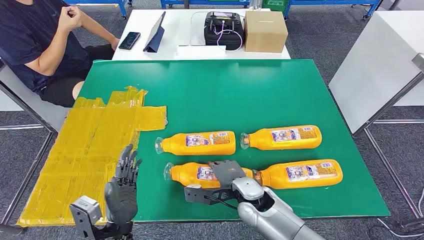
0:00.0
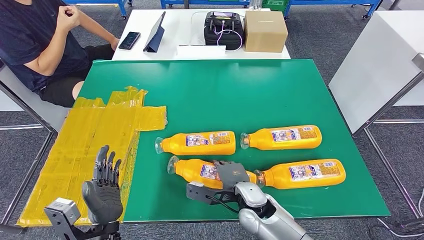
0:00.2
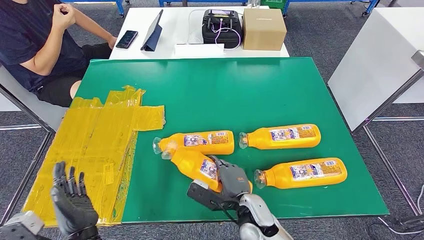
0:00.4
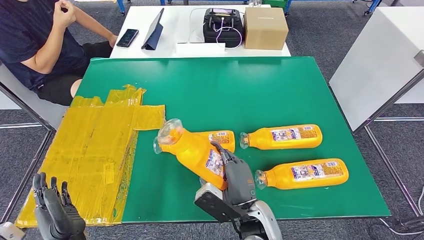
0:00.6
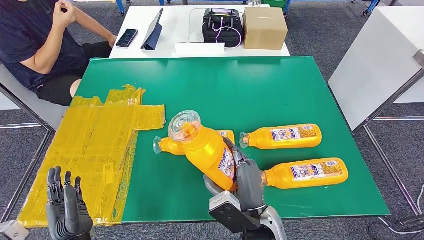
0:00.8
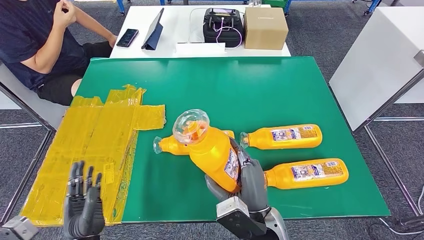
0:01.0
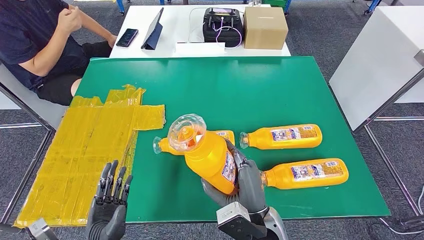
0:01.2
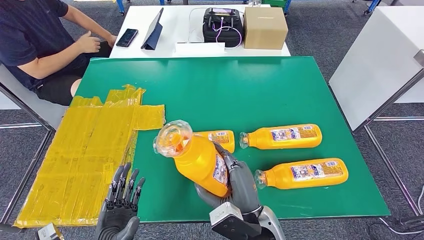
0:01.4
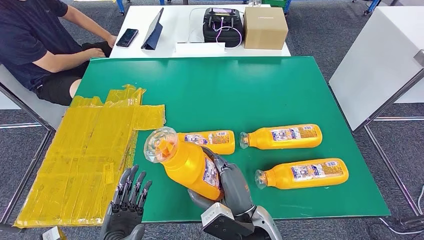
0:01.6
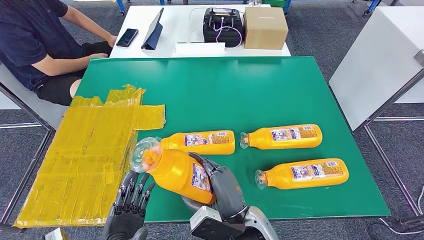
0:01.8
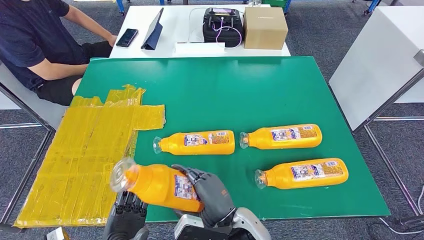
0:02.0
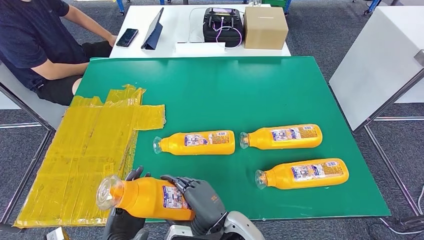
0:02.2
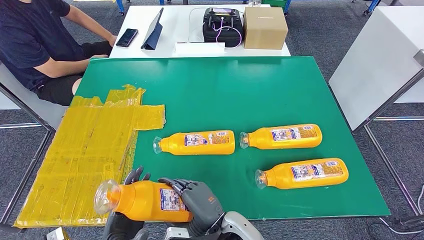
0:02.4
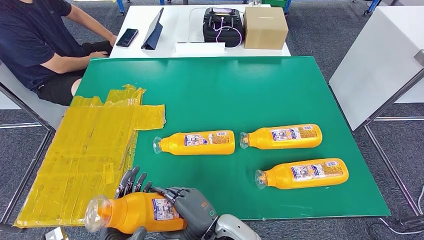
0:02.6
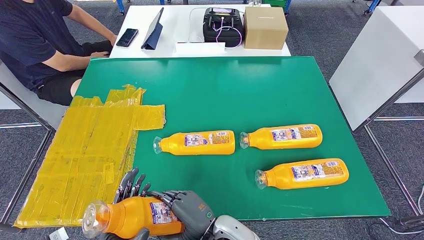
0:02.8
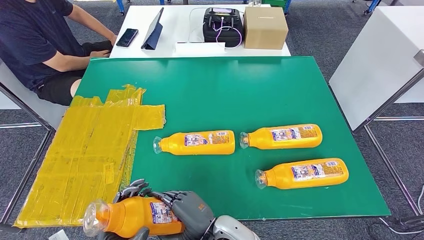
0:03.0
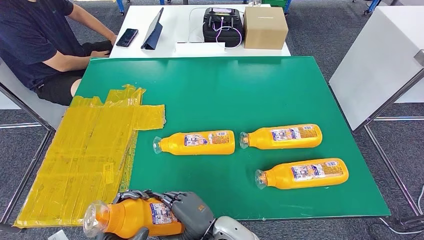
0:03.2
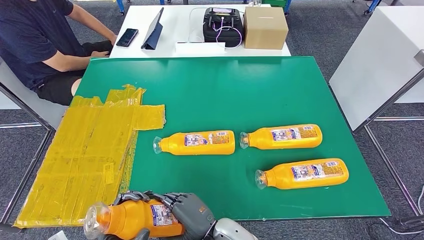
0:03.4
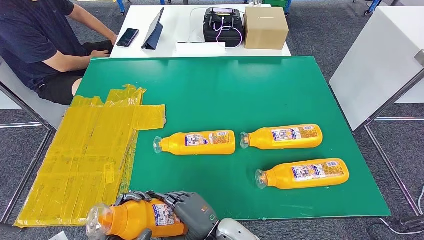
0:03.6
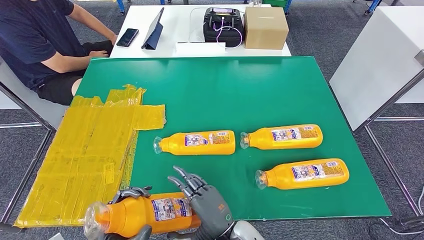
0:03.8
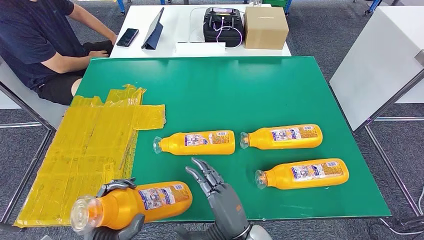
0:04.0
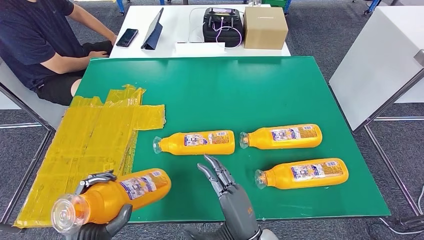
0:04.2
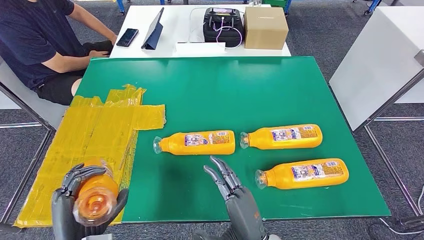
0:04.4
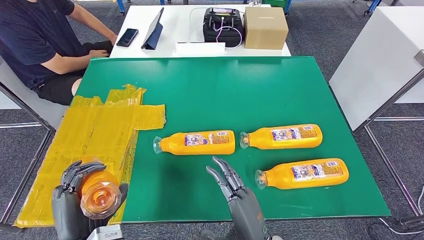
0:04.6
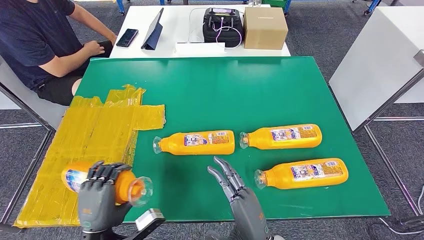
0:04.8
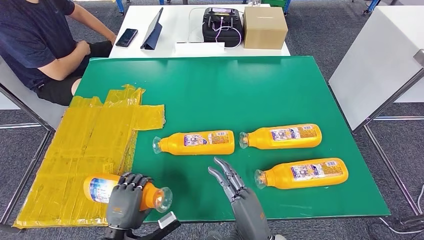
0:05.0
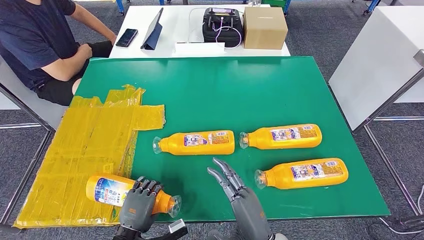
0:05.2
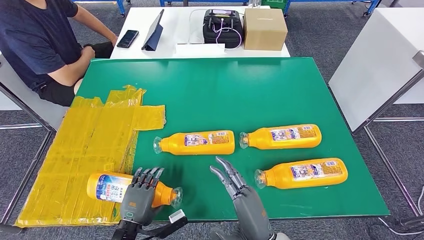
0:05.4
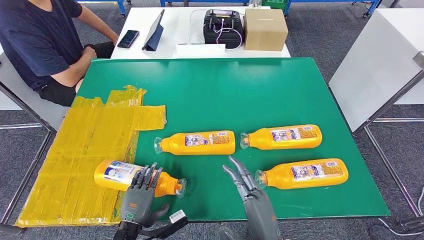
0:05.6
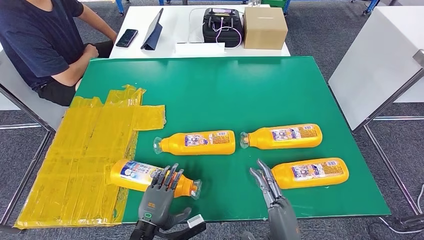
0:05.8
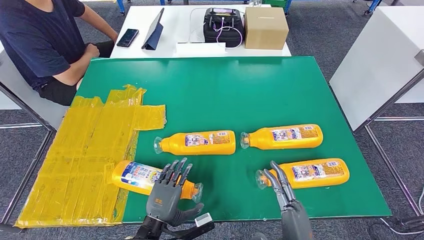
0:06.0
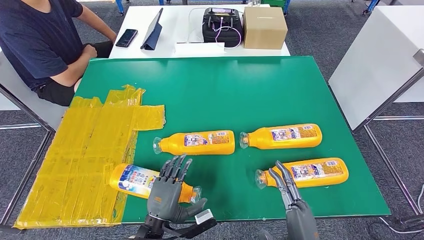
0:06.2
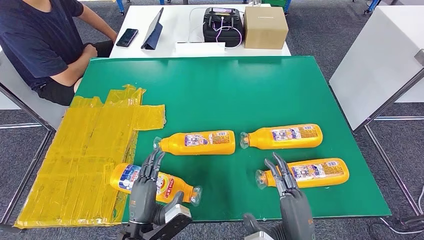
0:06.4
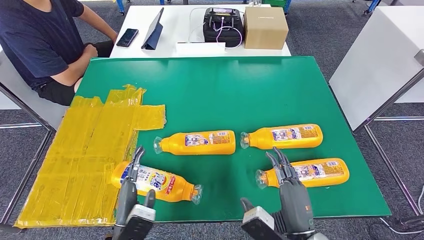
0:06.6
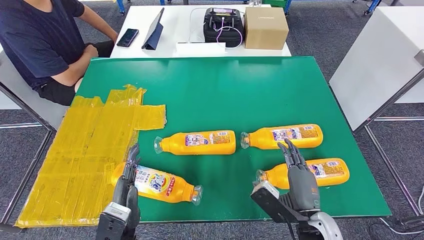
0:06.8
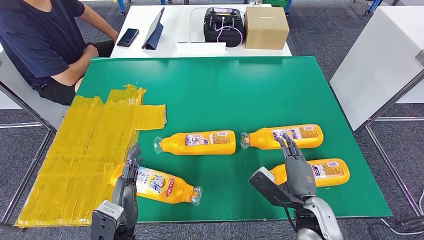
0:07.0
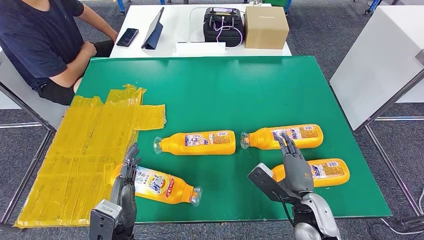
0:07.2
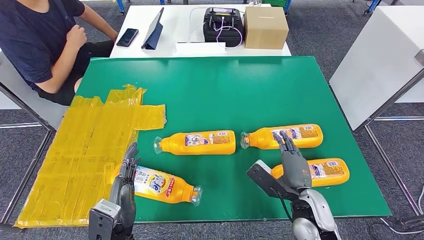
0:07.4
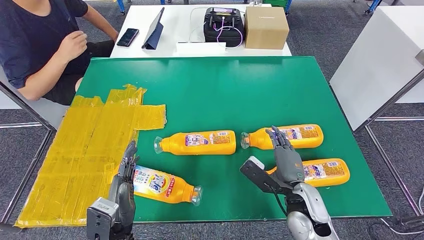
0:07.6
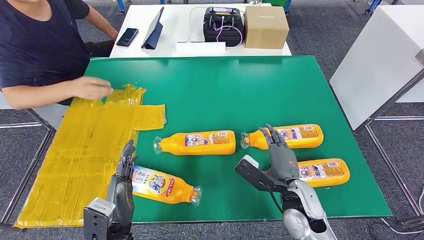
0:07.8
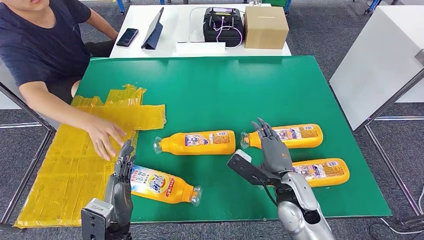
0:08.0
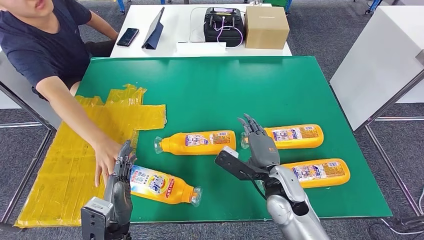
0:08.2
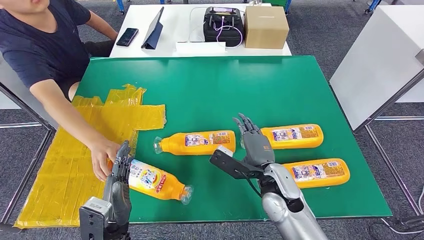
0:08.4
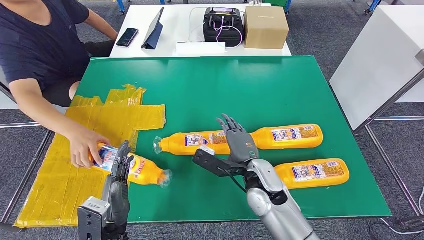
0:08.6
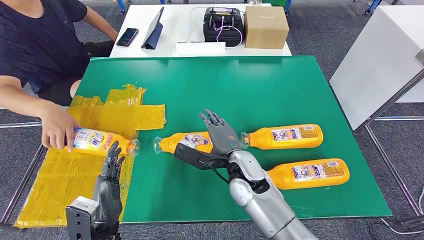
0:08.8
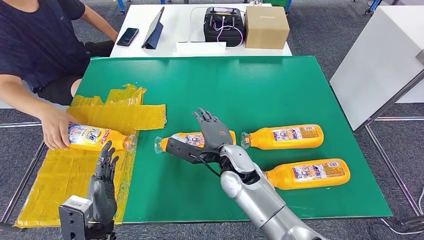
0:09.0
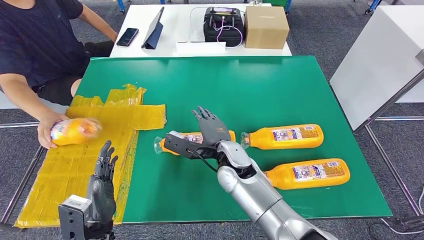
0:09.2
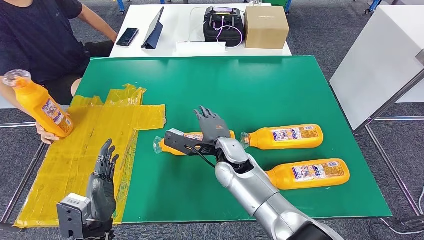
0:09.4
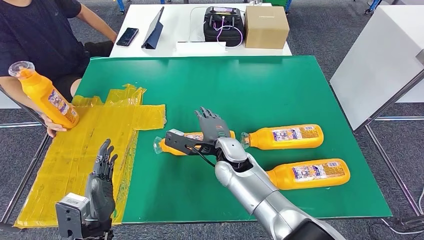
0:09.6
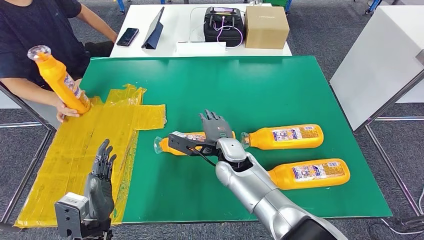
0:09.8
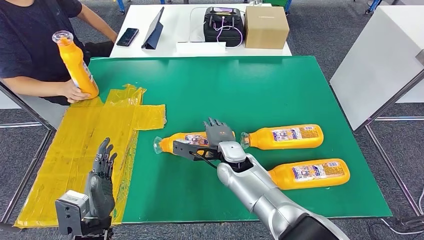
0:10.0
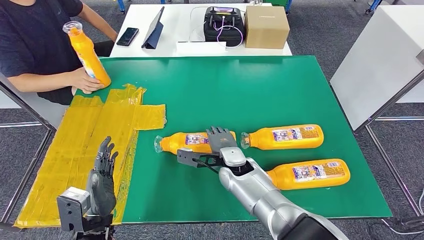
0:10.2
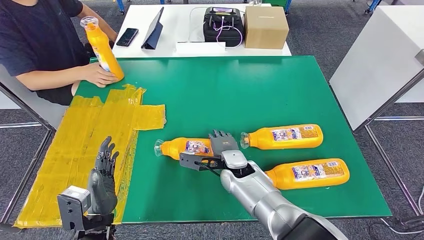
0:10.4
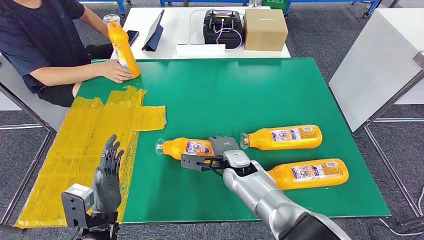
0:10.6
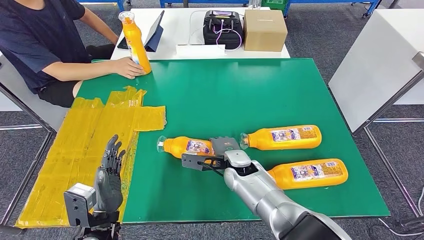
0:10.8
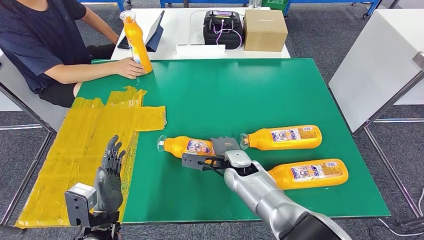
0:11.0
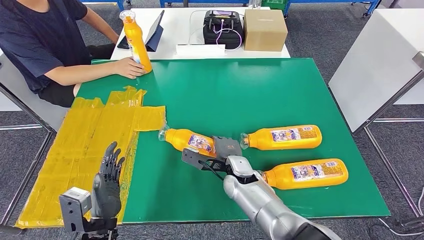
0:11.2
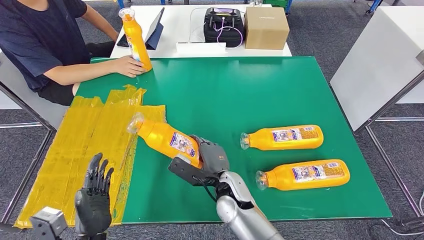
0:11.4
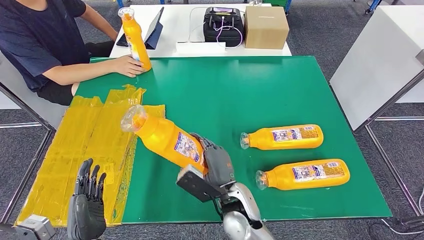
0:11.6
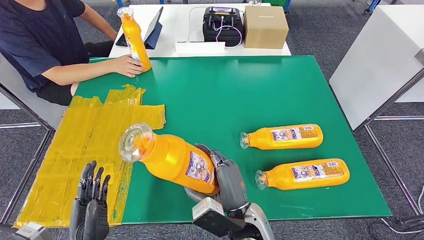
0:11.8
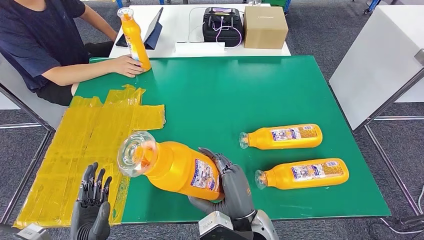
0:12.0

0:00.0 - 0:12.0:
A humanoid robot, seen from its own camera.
Step, 0:00.0 - 0:03.2: Take the fast-moving consumer goods bottle from the table.
Step, 0:03.4 - 0:08.0: Flip the fast-moving consumer goods bottle to the front side.
0:01.6 - 0:03.0: The right hand heads to the left, covering some 5 cm.
0:03.0 - 0:04.4: The right hand is displaced to the right by some 5 cm. The left hand goes approximately 5 cm upward.
0:04.4 - 0:06.0: The left hand is displaced to the right, downward and forward by some 15 cm; the right hand moves to the right, approximately 5 cm.
0:06.0 - 0:07.6: The left hand heads upward and to the left, covering some 10 cm, while the right hand travels forward by about 15 cm.
0:09.0 - 0:10.4: The right hand heads downward, covering approximately 5 cm.

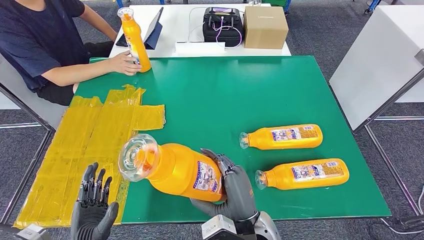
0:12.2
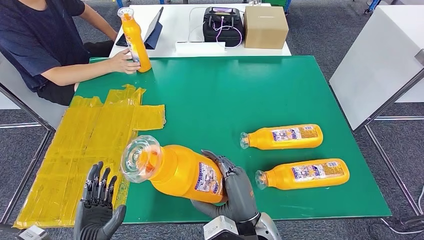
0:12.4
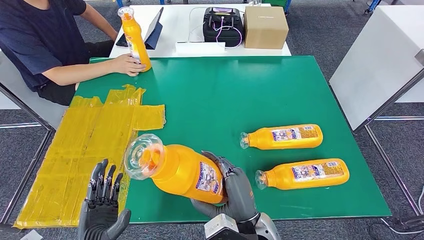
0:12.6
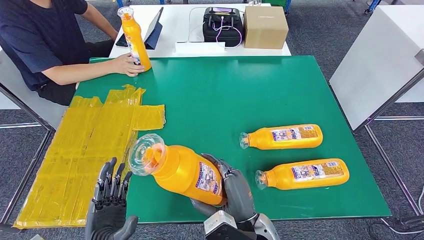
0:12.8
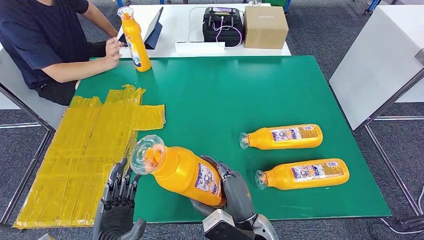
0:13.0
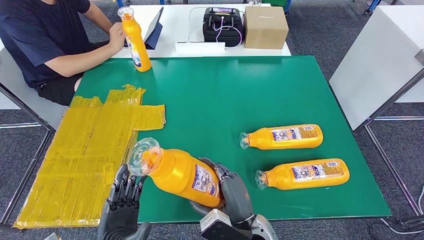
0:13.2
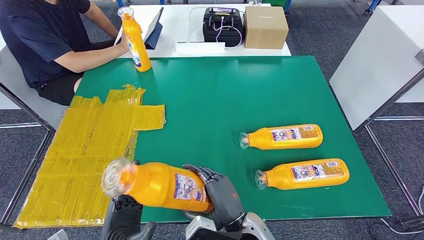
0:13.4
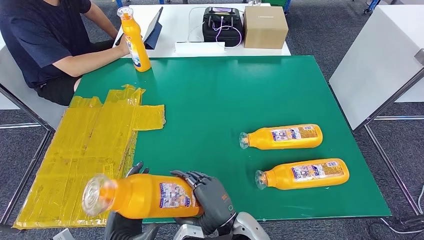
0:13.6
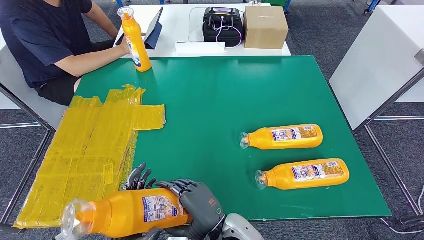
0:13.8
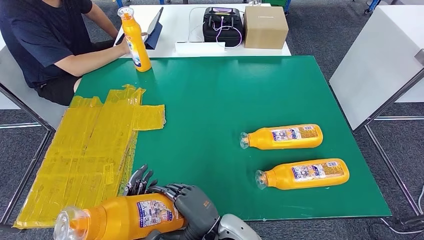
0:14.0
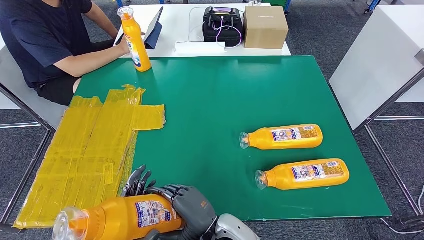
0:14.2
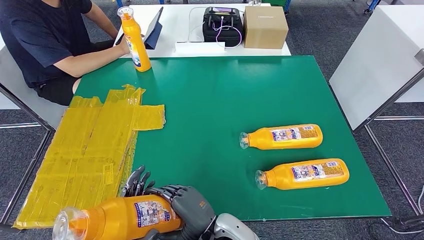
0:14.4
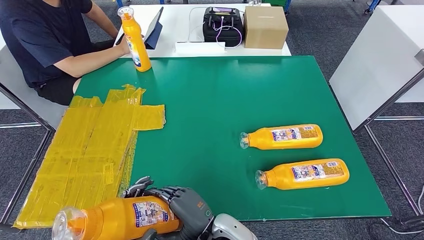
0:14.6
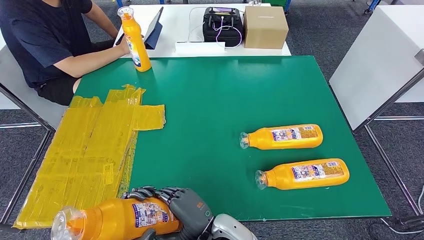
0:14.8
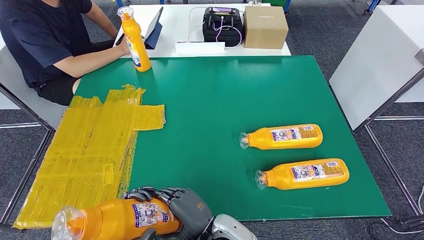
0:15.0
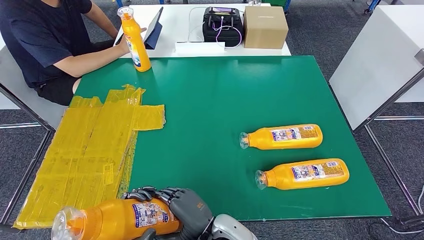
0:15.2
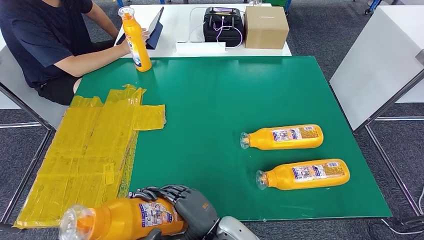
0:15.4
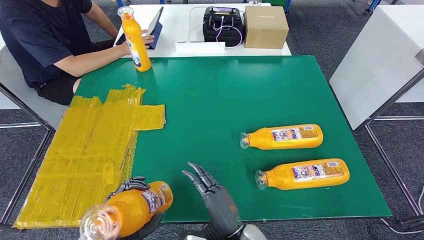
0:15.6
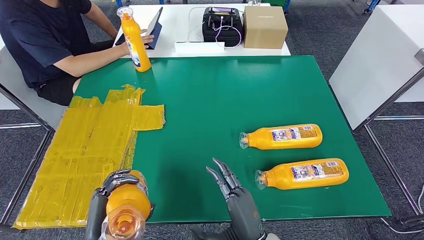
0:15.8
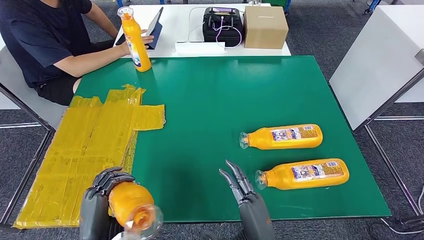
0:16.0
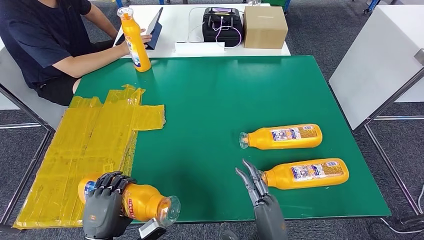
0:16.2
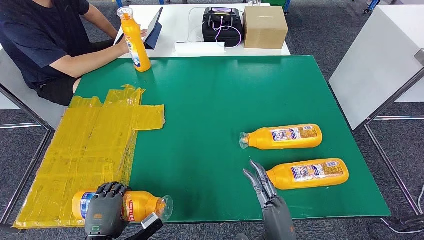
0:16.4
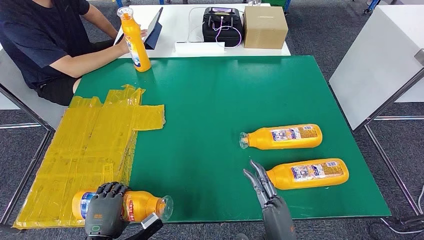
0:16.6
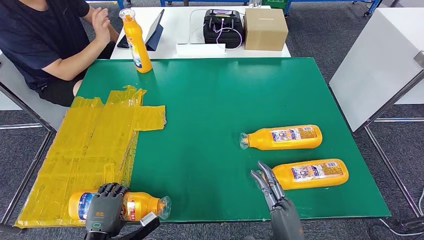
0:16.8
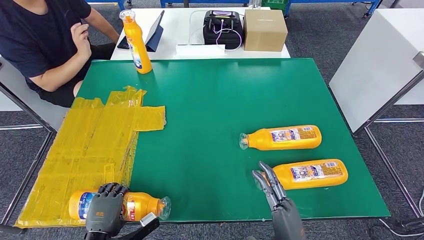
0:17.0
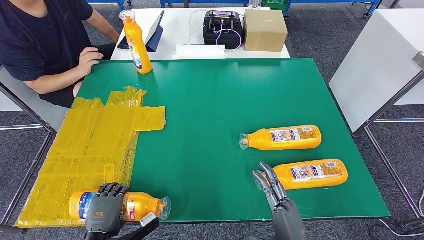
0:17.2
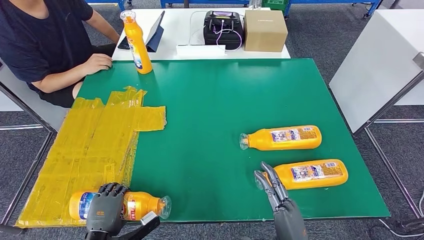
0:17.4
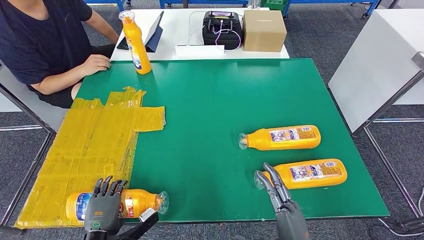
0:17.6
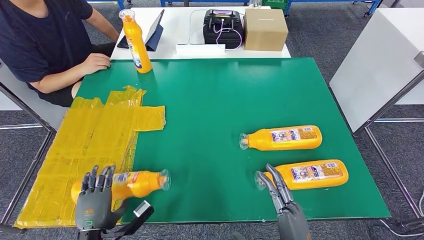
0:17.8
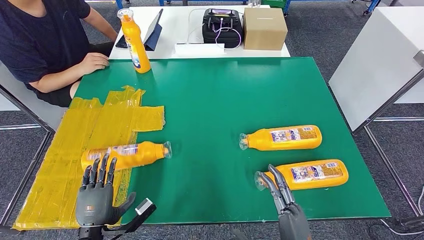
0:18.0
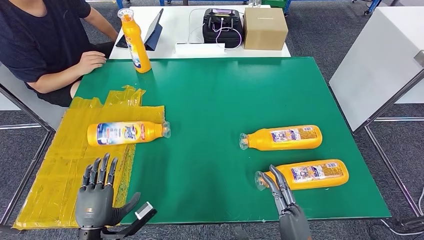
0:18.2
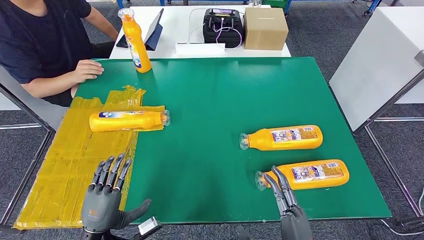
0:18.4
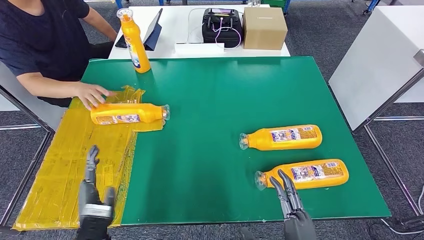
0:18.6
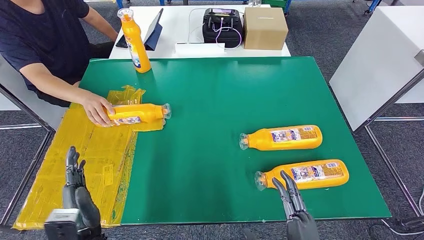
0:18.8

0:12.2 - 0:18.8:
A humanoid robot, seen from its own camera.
Step, 0:13.2 - 0:18.0: Flip the fast-moving consumer goods bottle to the front side.
0:13.8 - 0:15.4: The hands make only small movements.
0:17.2 - 0:18.8: The left hand heads upward, covering about 10 cm.
